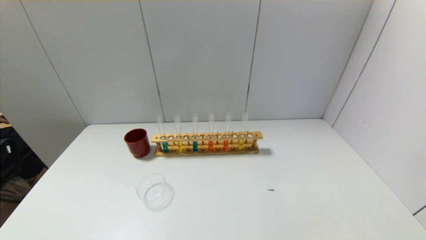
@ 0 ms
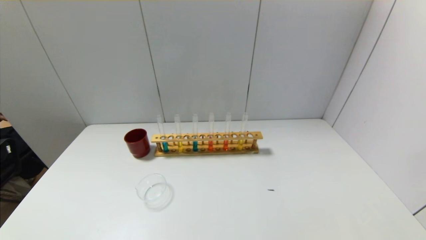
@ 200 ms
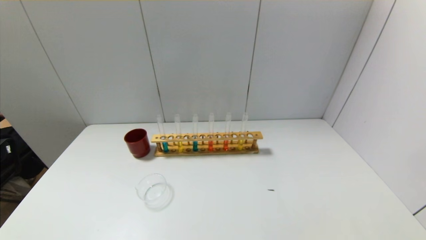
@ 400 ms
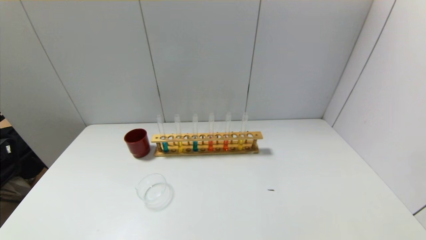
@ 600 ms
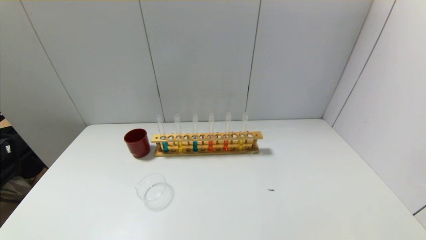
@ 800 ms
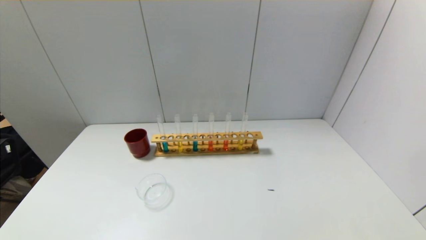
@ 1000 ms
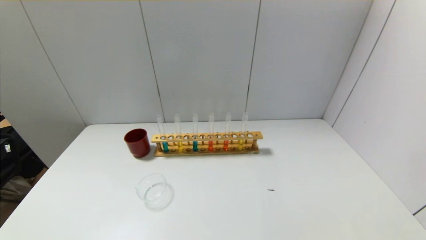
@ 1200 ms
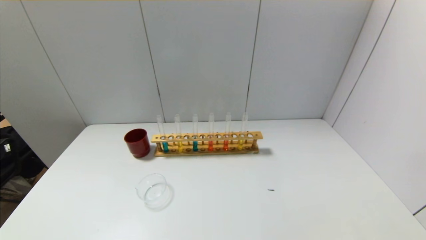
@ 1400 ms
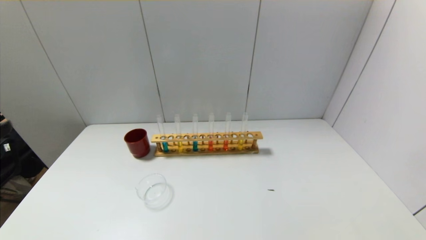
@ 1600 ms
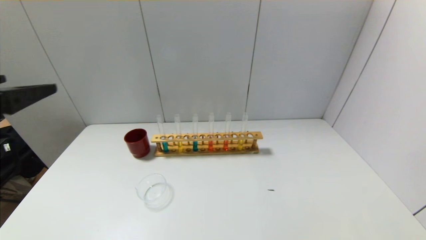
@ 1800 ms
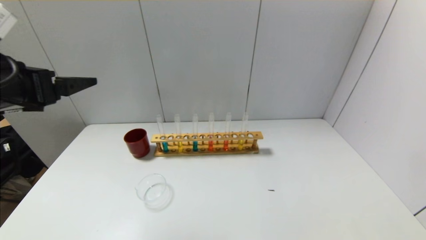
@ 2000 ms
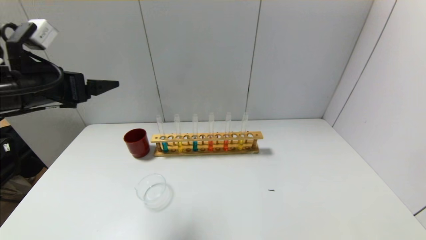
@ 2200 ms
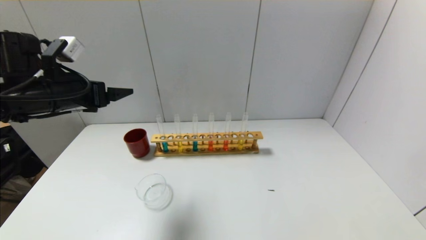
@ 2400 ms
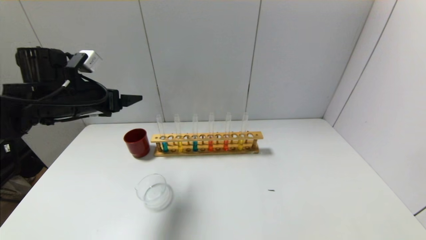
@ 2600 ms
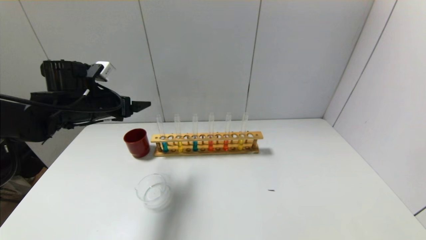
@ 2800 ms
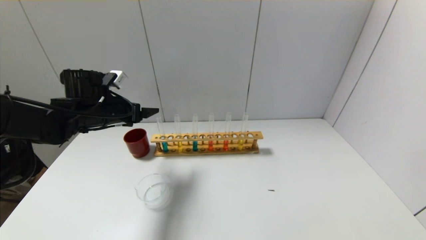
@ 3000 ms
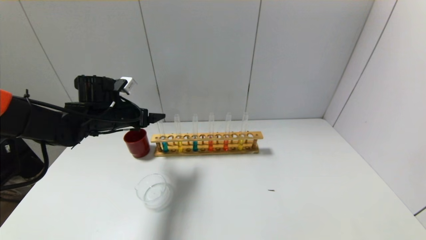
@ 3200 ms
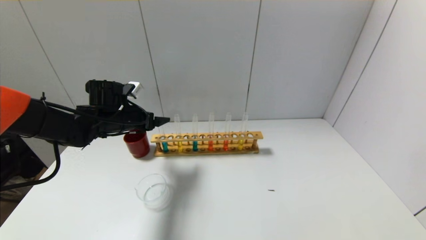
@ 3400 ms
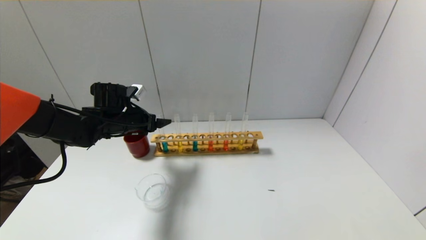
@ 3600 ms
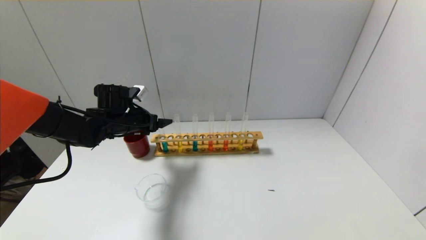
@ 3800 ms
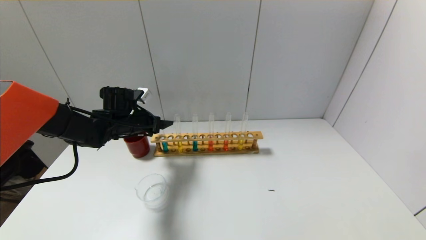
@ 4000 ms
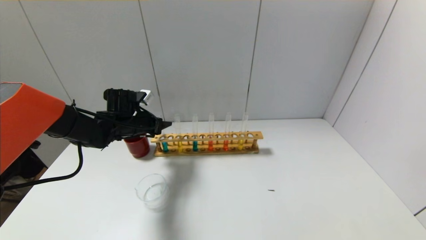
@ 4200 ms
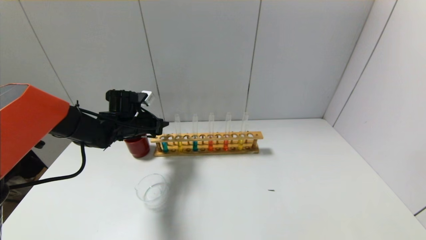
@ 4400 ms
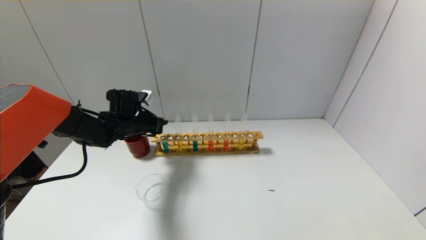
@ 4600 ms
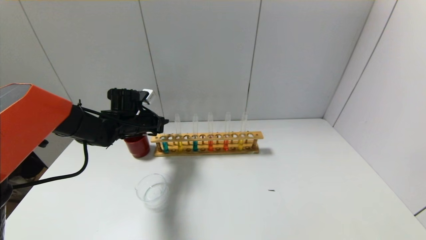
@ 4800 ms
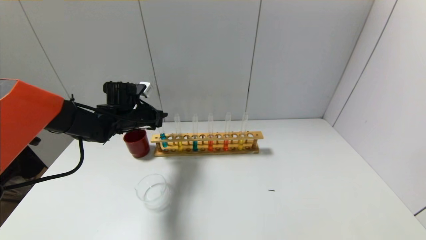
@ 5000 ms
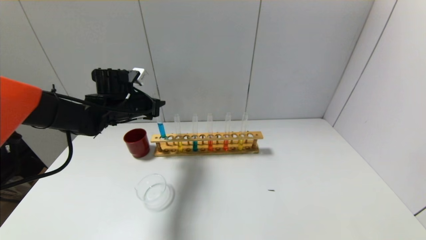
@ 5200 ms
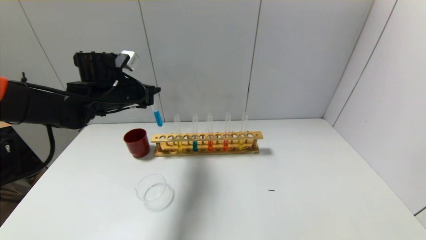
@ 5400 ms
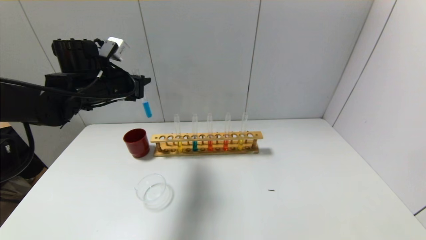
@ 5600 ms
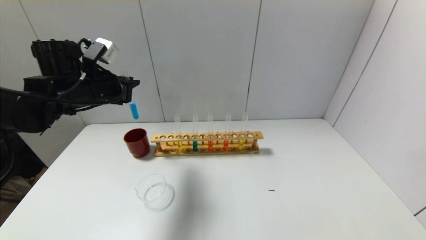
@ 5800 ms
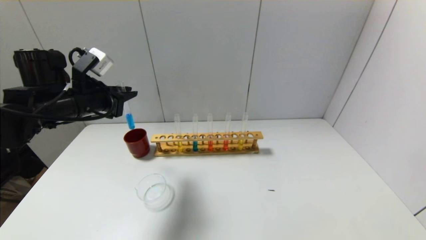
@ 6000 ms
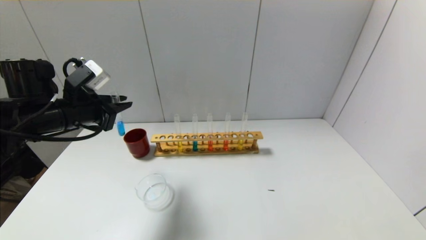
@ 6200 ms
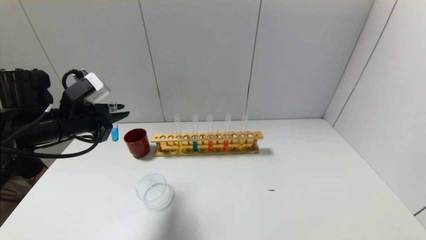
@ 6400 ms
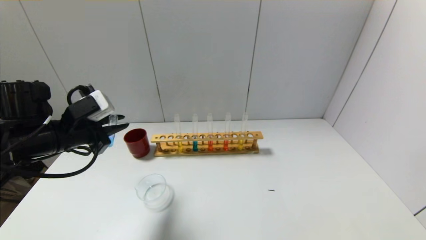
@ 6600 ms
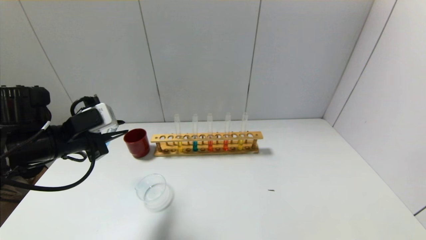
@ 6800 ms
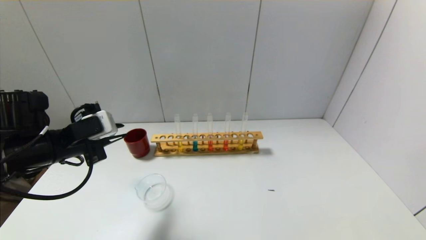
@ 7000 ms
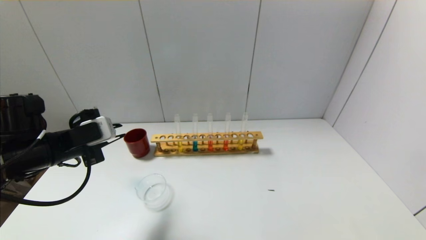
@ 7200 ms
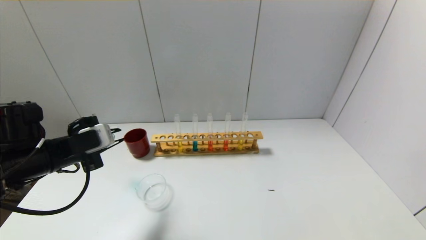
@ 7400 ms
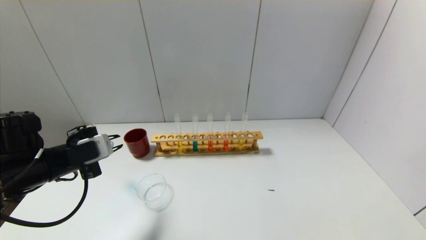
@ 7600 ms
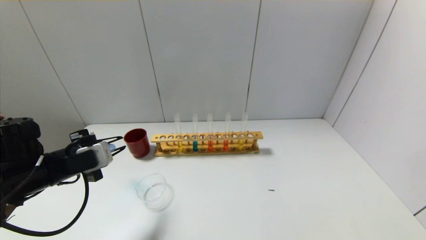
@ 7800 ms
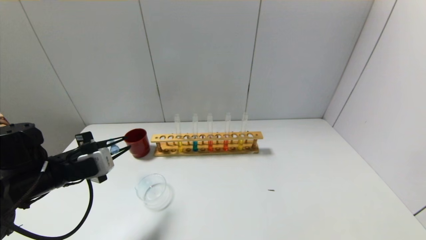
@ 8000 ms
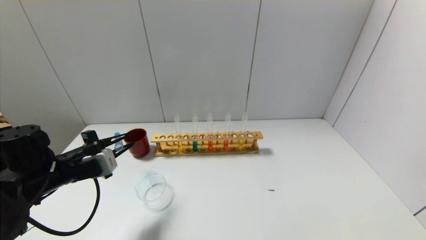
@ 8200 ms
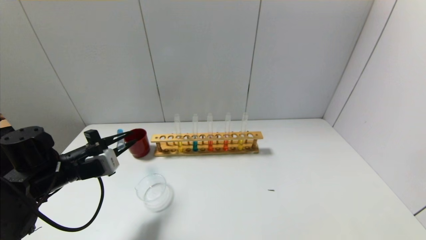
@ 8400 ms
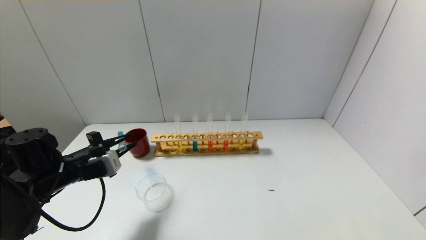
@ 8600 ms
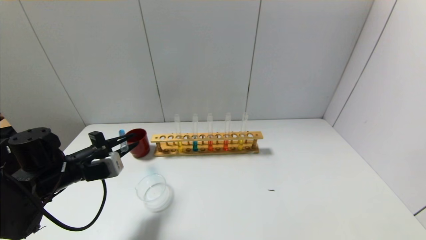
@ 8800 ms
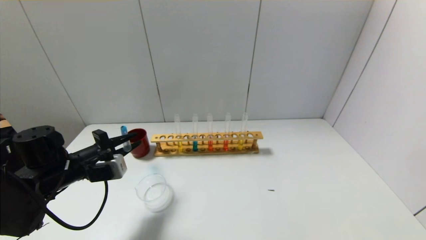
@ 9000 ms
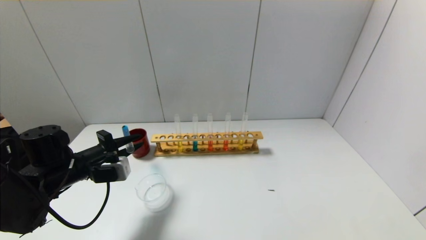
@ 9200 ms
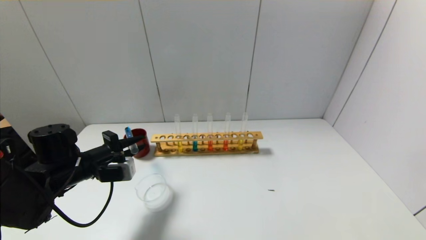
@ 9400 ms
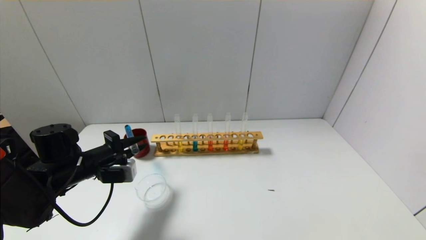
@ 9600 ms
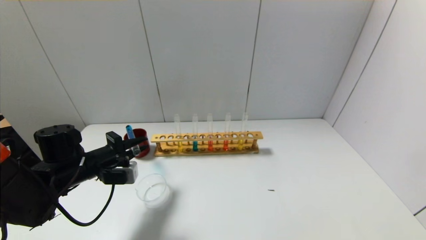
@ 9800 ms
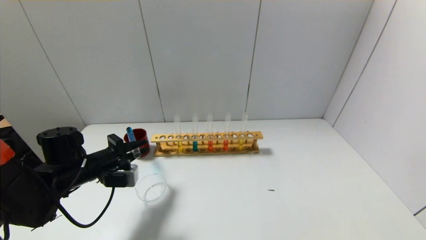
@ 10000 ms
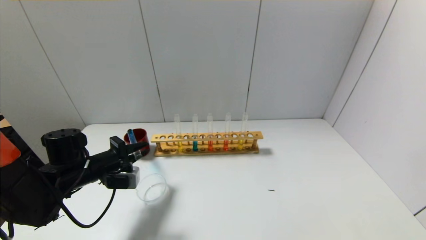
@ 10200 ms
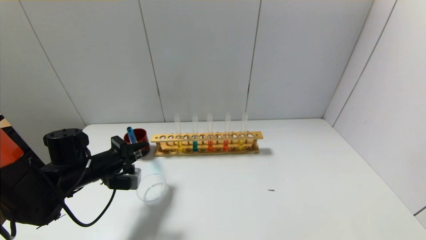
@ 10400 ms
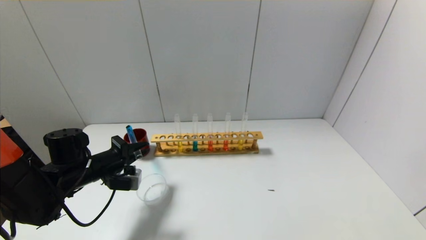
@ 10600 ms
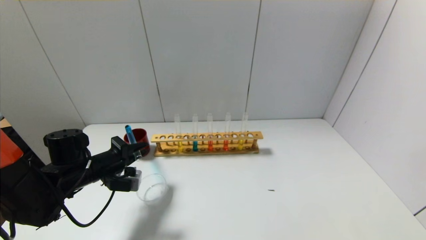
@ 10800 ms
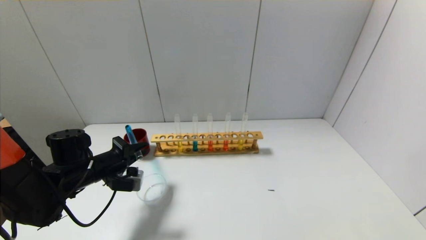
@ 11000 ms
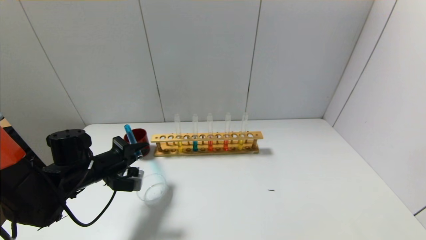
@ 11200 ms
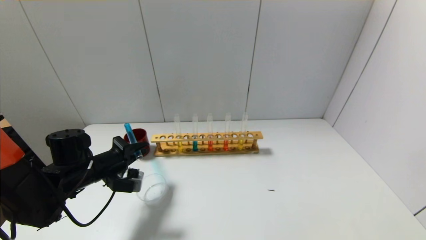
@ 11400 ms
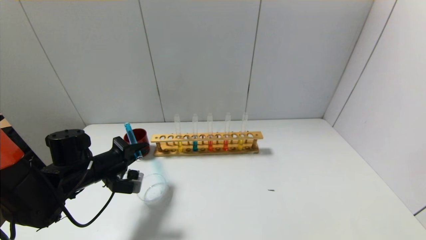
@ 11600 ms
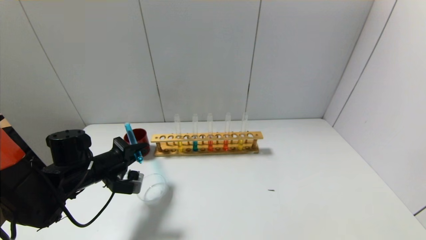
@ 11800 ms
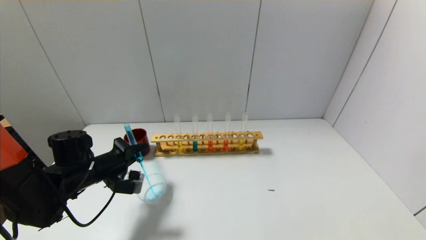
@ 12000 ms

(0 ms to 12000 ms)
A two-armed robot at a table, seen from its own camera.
Step, 0 ms - 4400 ms: Grasp the blue reagent with the left gripper.
1600 ms - 3000 ms: The left gripper heads forward, covering some 30 cm.
3000 ms - 4400 ms: The left gripper shifts some 10 cm downward and forward, and closes its fingers.
4400 ms - 6000 ms: The left gripper heads upward and backward, covering roughly 15 cm.
6000 ms - 7600 ms: The left gripper shifts about 10 cm backward and downward.
7600 ms - 9000 ms: The left gripper ends up approximately 5 cm from where it was.
9000 ms - 10400 ms: The grippers stay close to where they were, moving slightly.
10400 ms - 12000 ms: The grippers make only small movements.

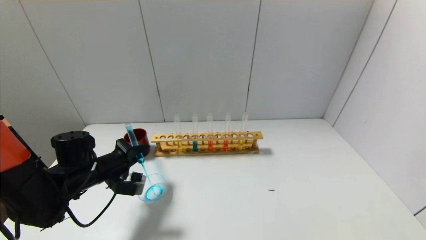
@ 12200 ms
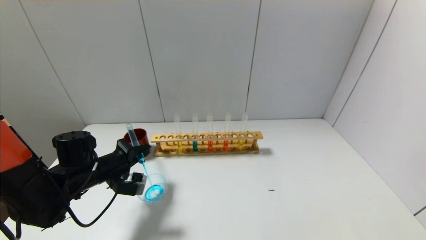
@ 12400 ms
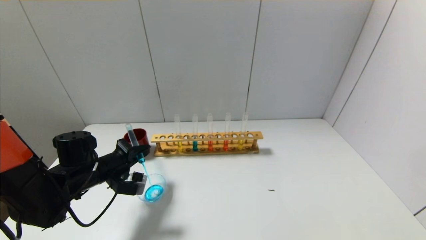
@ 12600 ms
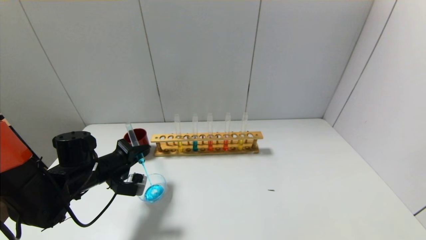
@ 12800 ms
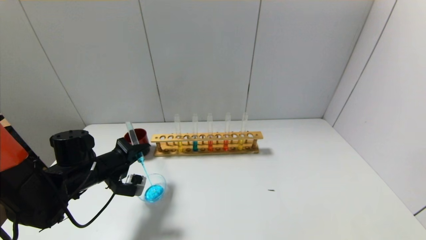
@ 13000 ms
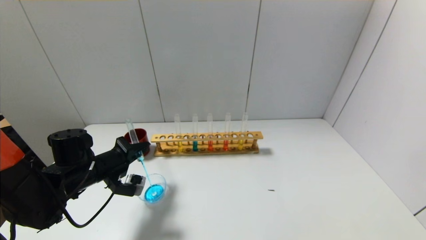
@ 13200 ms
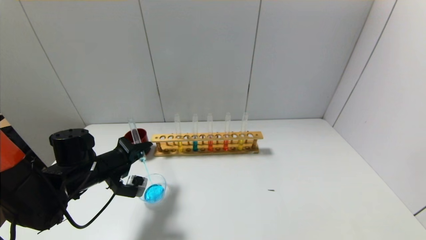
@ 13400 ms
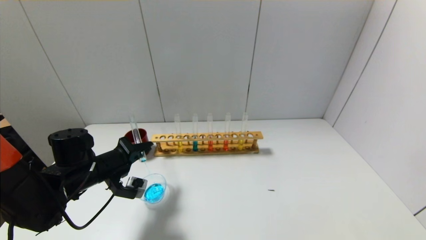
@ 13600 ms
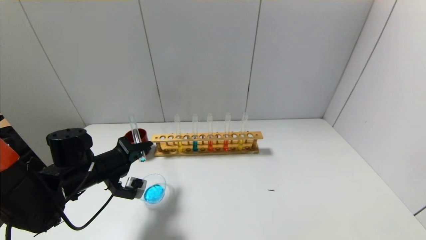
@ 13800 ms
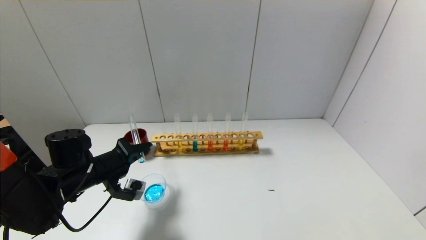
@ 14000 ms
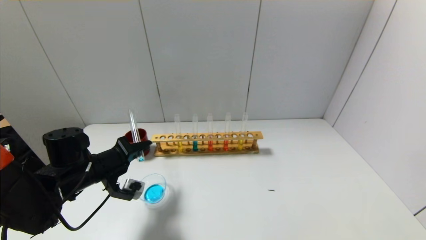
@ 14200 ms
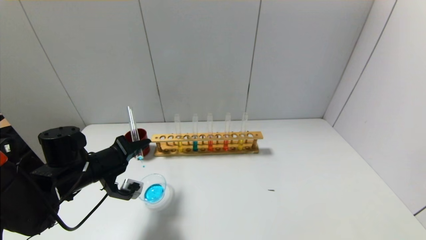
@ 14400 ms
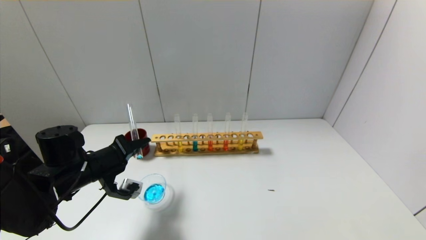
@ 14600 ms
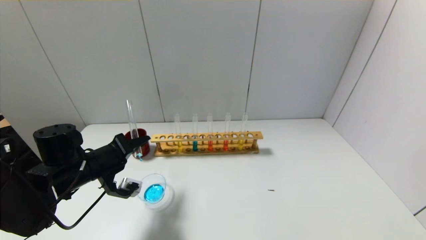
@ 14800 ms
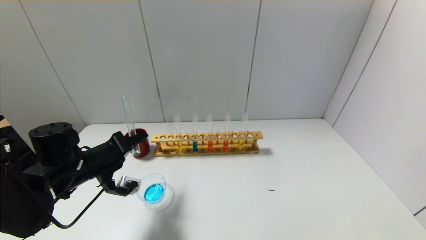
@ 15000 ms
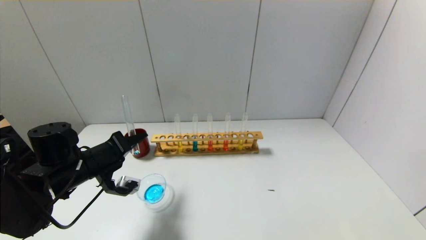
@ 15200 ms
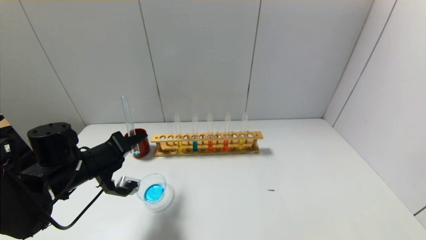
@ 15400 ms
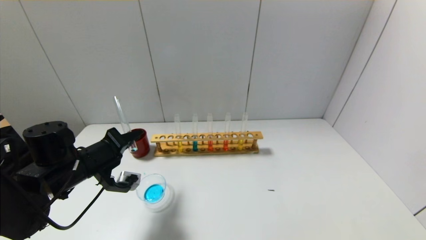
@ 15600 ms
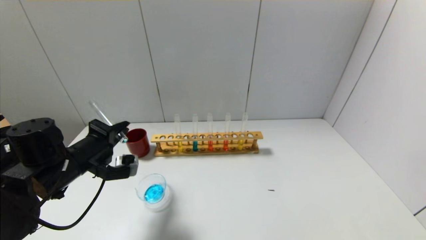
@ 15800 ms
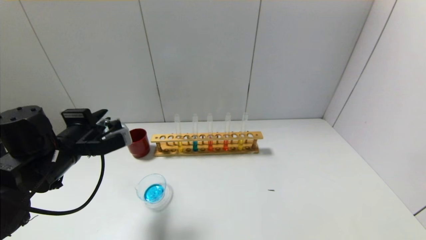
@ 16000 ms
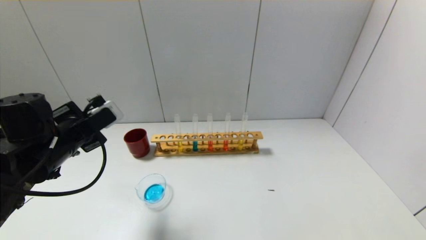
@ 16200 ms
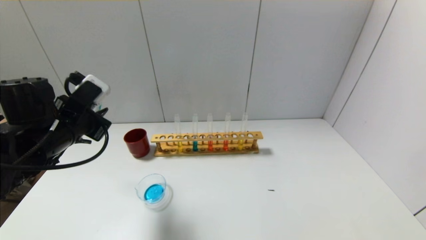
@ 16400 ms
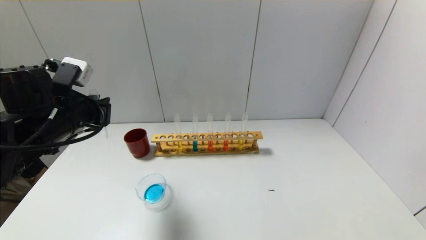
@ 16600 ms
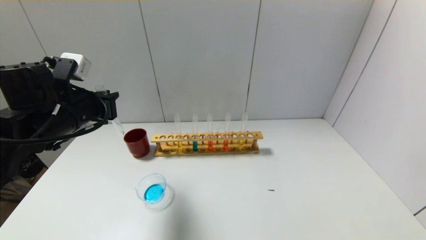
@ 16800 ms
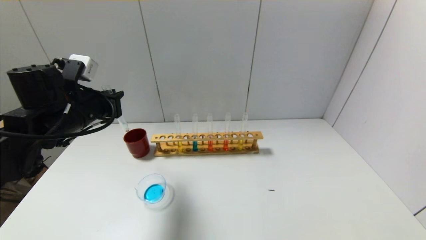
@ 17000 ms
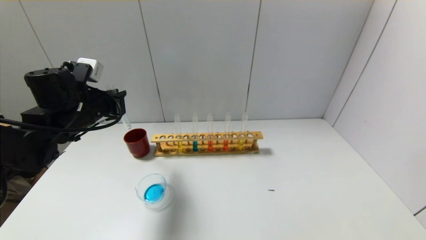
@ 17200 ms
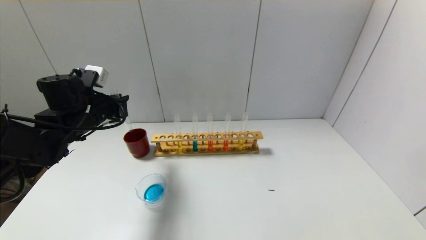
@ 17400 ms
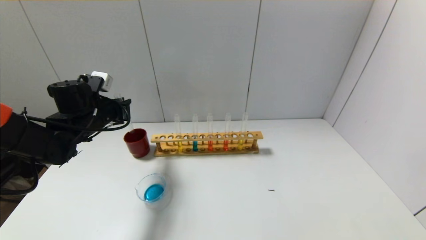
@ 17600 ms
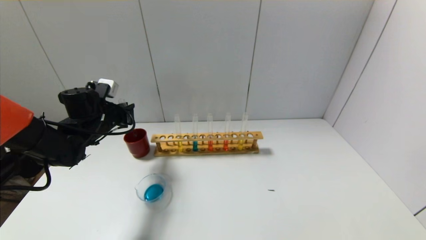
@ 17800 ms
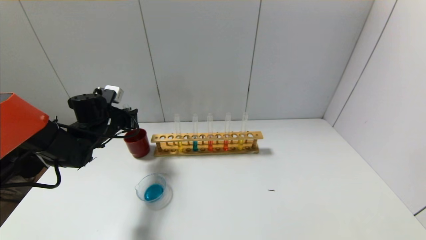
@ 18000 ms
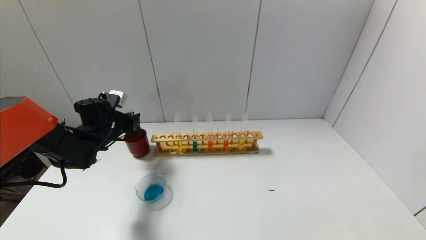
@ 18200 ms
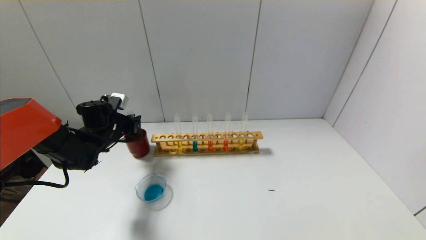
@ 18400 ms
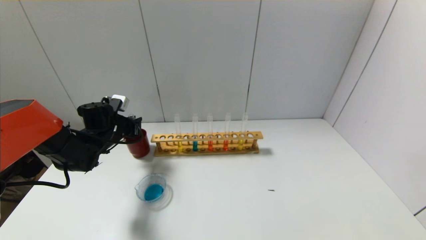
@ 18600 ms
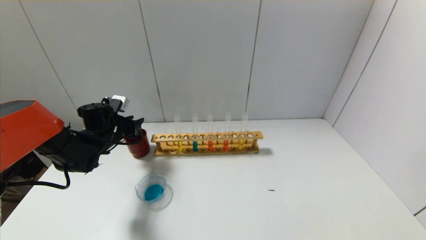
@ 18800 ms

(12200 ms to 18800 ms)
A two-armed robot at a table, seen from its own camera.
Step, 12200 ms - 15800 ms: Pour the blue reagent into the graduated cylinder with the left gripper.
12200 ms - 13800 ms: The grippers move only a little.
13800 ms - 15400 ms: There are only small adjustments of the grippers.
15400 ms - 17200 ms: The left gripper shifts roughly 10 cm upward and forward.
17200 ms - 18800 ms: The left gripper shifts some 15 cm downward and forward.
